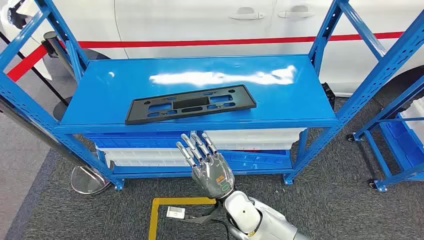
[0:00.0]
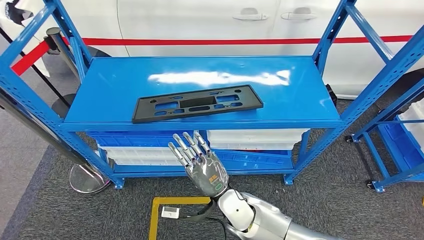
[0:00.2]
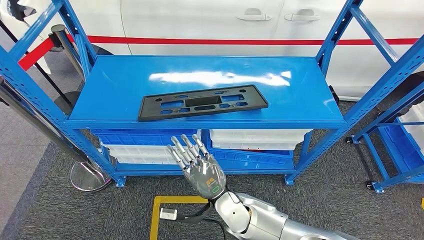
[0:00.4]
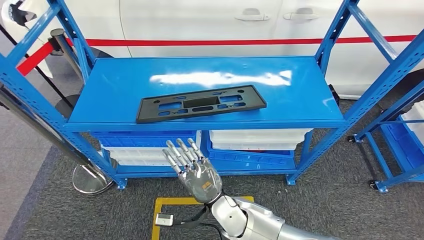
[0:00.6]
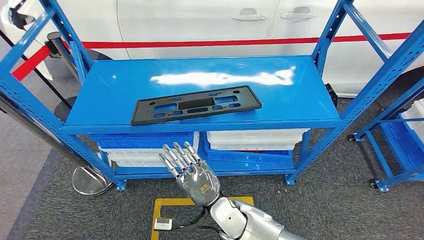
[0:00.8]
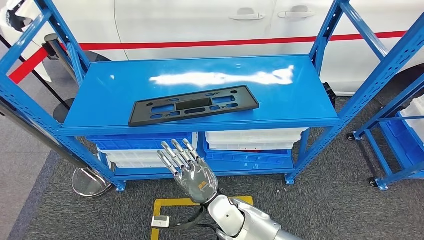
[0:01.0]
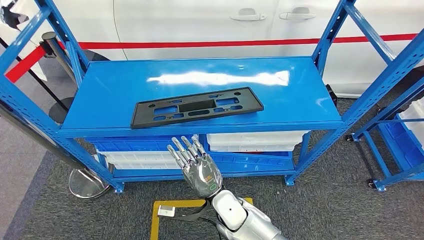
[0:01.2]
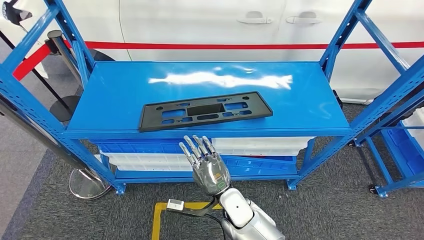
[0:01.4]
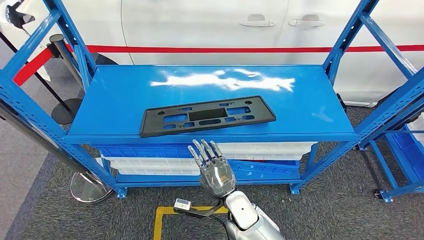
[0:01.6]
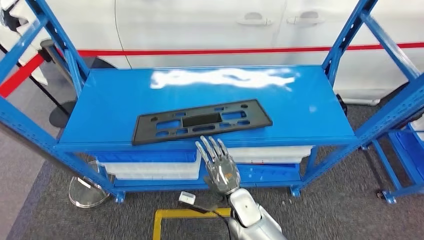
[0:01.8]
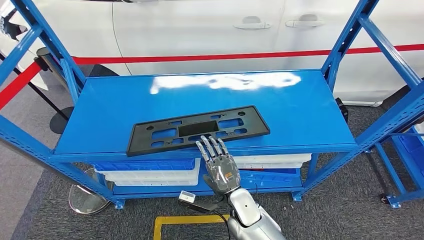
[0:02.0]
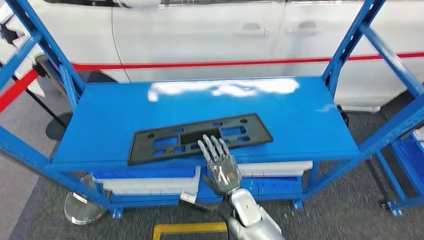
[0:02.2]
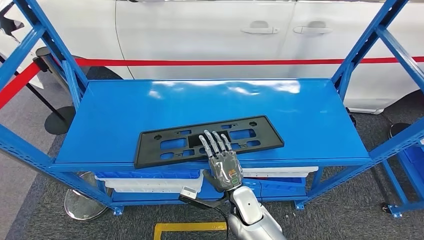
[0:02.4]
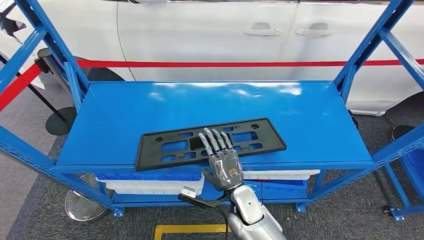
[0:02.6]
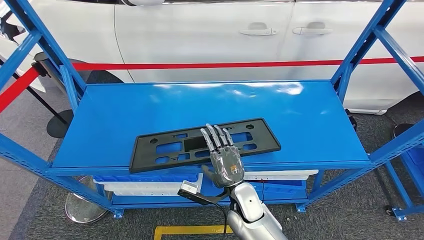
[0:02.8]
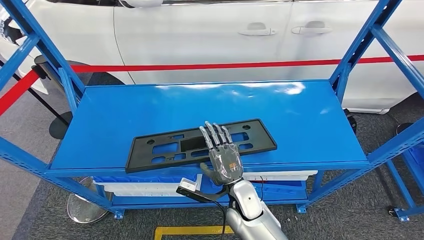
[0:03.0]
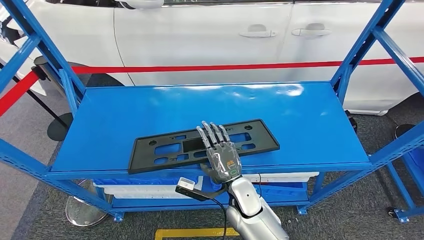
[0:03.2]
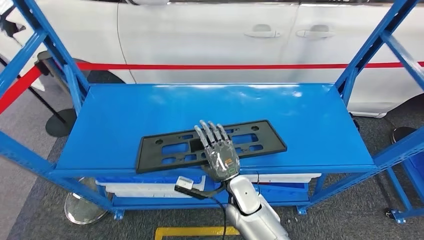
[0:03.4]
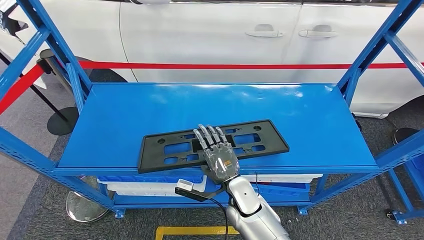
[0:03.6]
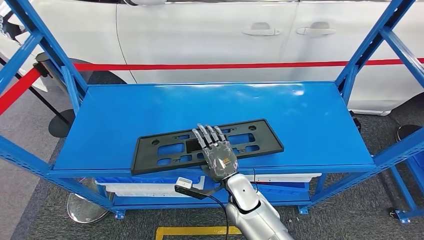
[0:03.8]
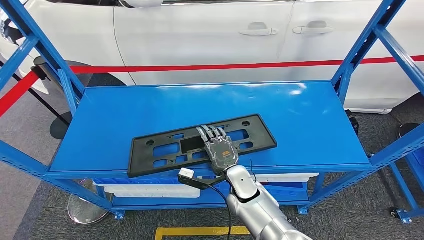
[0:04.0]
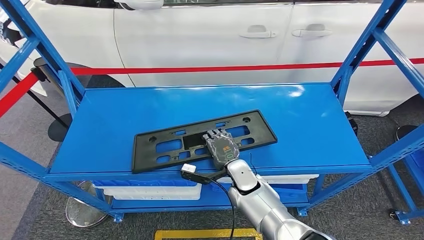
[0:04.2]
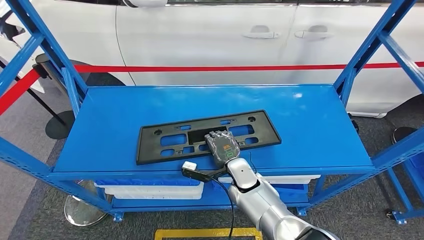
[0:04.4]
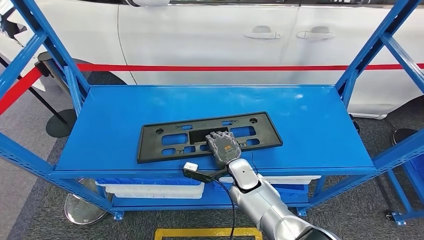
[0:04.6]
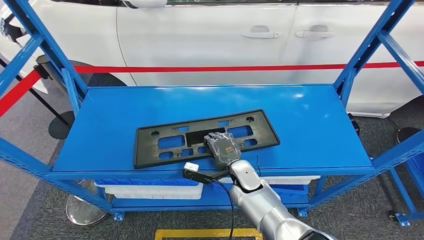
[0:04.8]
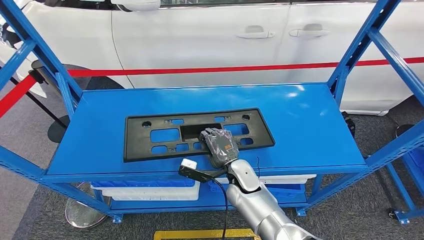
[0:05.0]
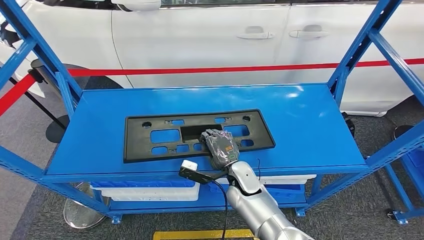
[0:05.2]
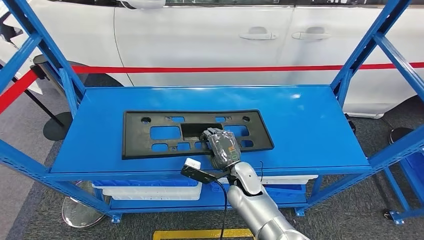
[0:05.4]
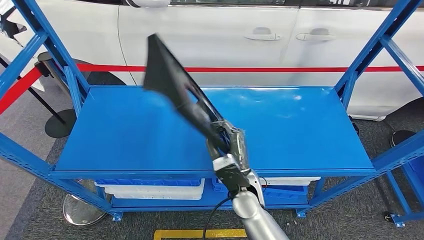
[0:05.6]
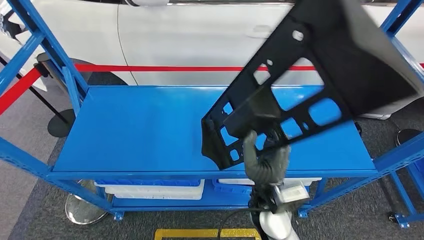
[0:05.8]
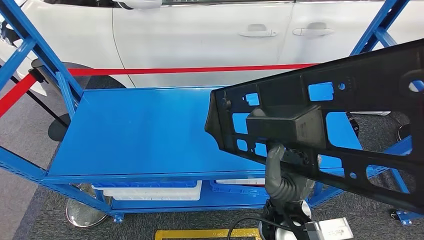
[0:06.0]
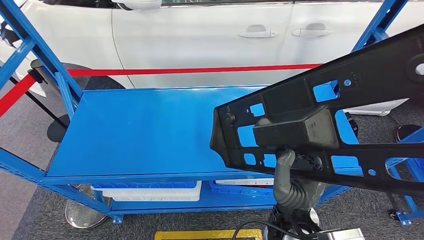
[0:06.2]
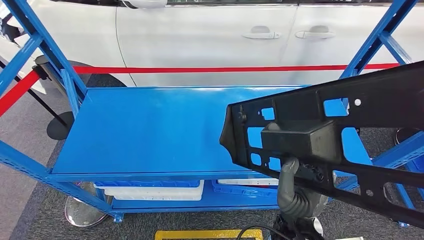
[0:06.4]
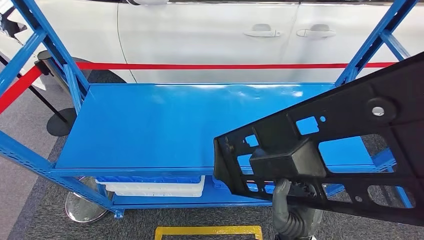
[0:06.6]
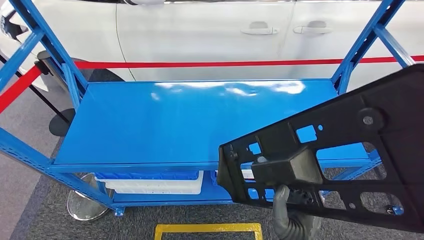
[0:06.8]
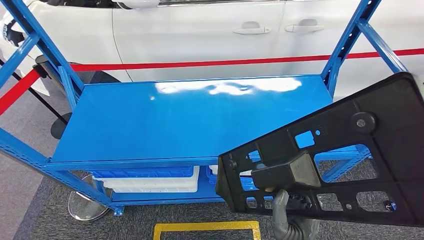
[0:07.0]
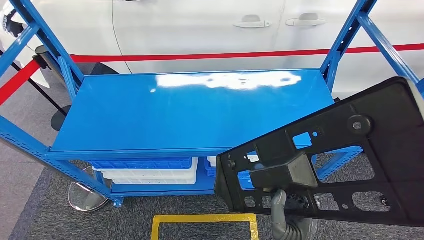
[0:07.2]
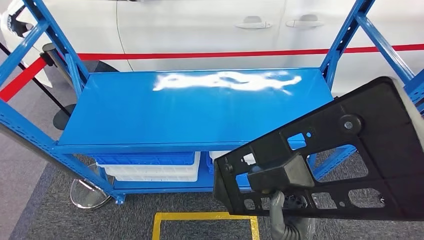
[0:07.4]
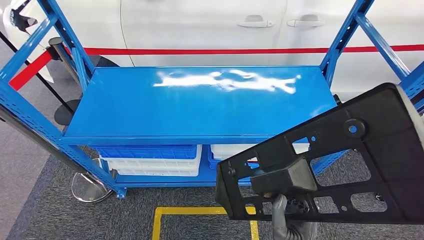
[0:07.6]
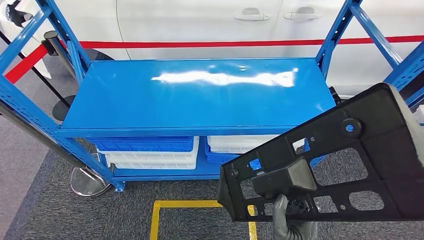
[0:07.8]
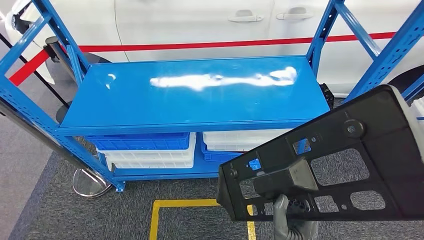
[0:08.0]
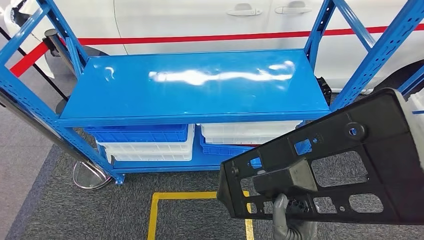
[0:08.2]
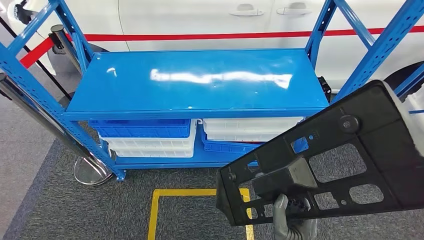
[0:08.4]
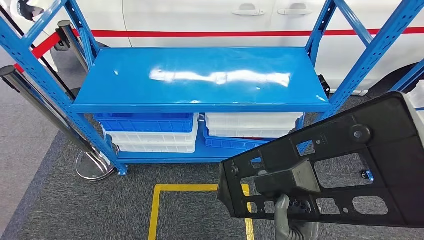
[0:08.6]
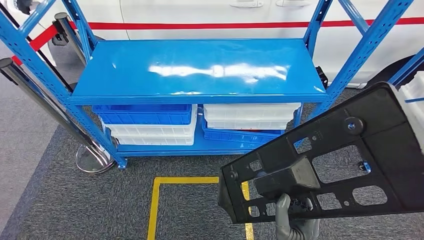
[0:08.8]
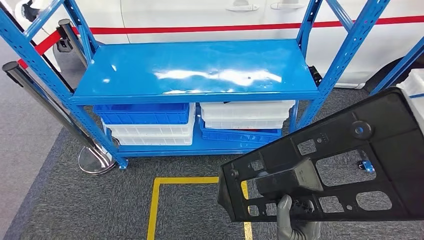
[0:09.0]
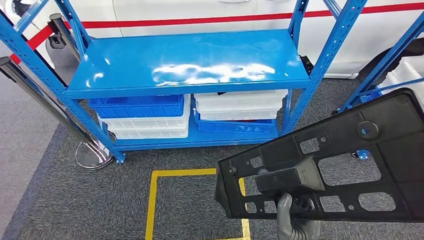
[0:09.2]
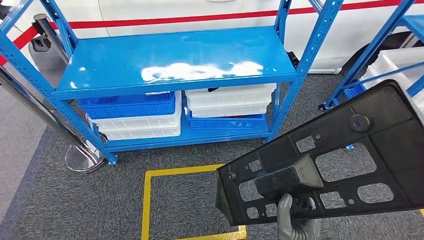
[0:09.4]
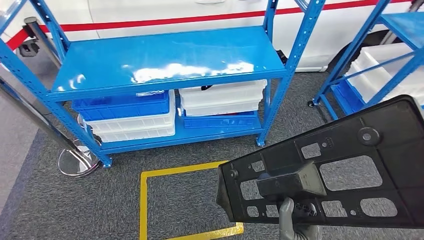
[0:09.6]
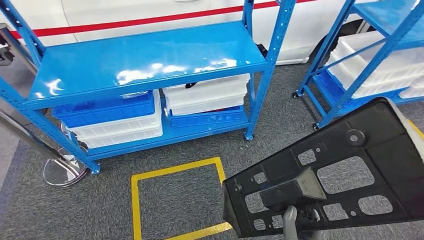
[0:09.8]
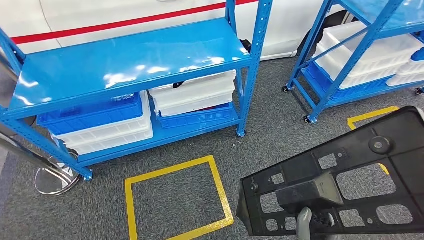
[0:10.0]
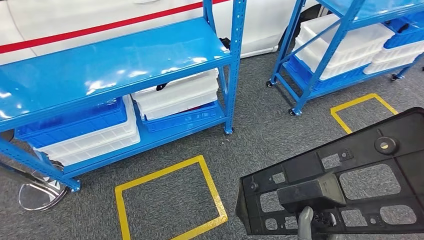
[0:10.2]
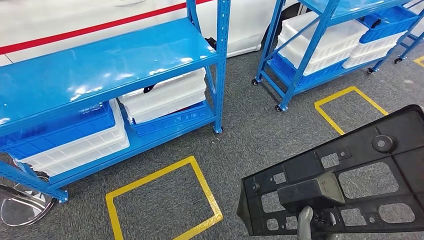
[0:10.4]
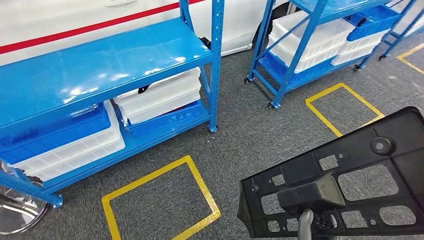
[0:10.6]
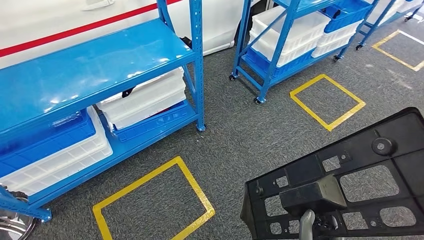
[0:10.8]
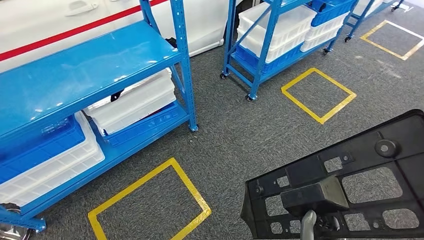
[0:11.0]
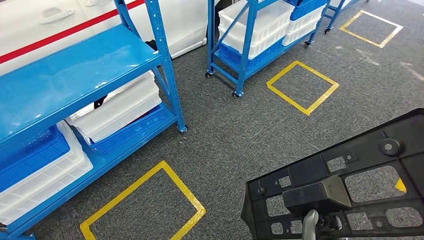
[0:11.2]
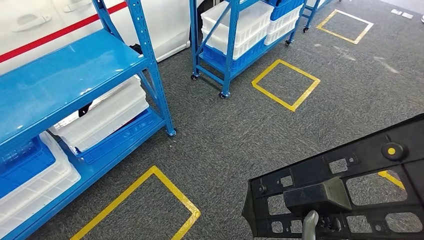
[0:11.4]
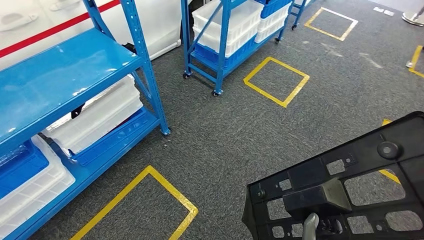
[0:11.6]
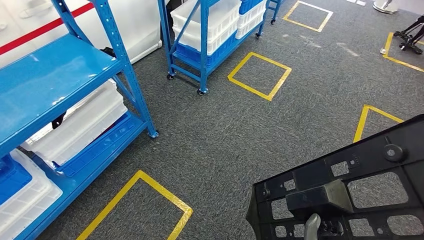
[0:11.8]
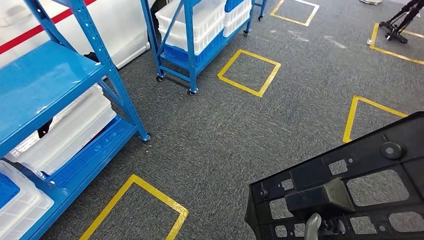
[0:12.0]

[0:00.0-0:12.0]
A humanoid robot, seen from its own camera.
Step, 0:00.0 to 0:08.0: Pick up the large material from the shelf.

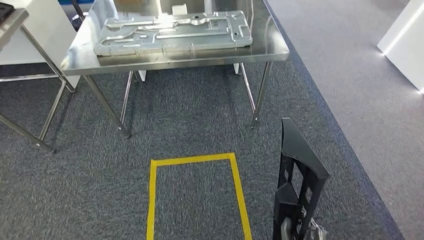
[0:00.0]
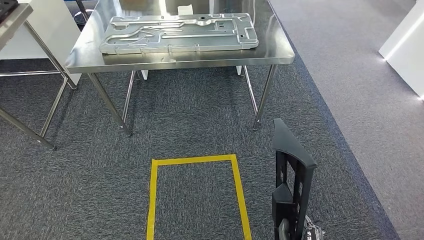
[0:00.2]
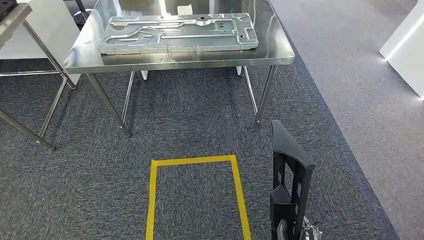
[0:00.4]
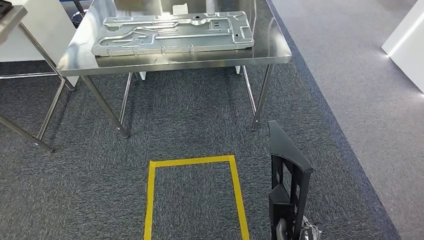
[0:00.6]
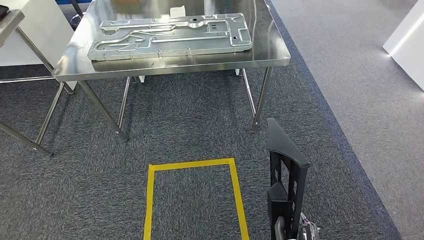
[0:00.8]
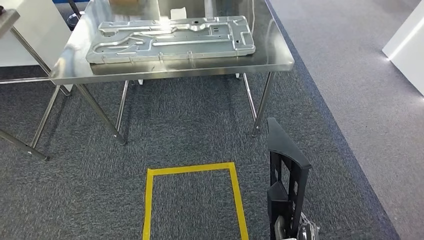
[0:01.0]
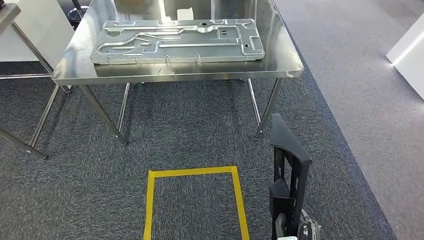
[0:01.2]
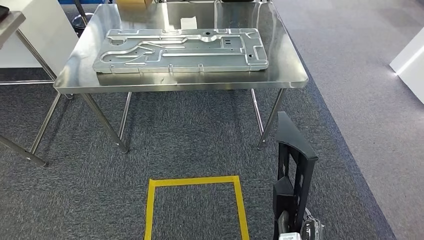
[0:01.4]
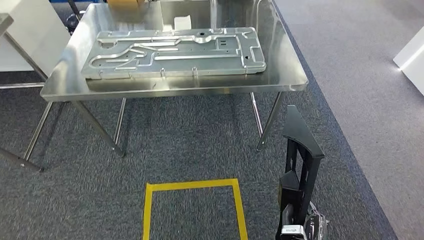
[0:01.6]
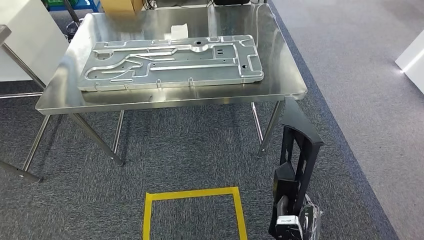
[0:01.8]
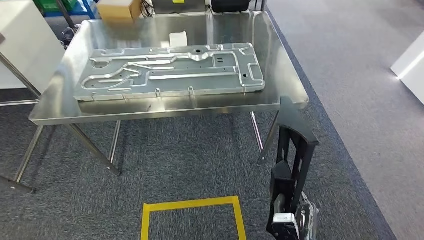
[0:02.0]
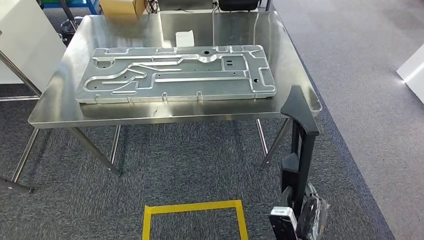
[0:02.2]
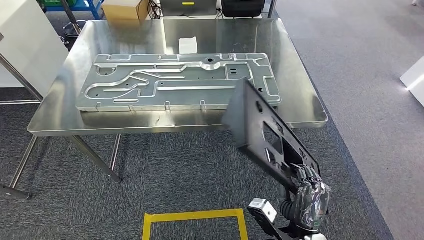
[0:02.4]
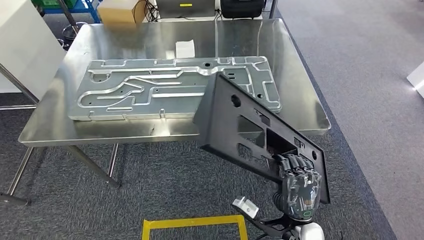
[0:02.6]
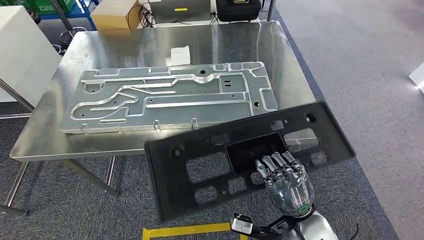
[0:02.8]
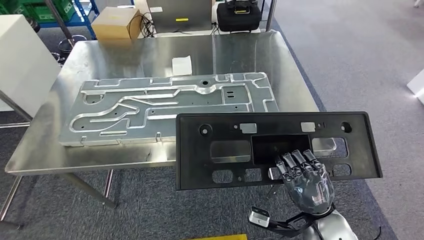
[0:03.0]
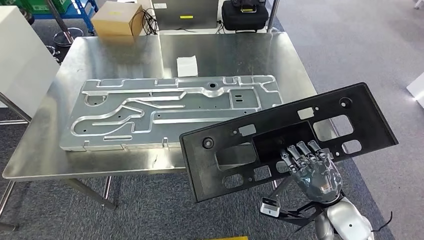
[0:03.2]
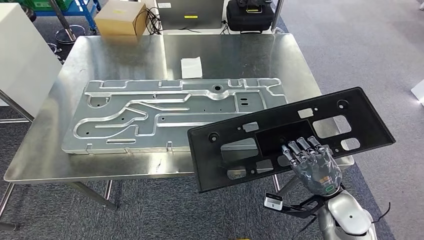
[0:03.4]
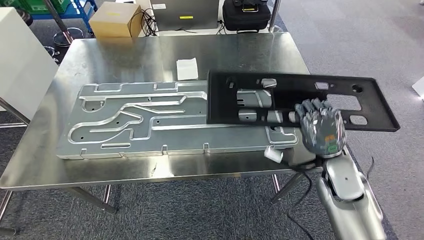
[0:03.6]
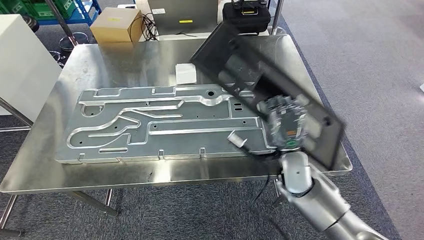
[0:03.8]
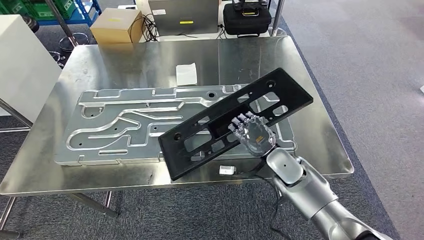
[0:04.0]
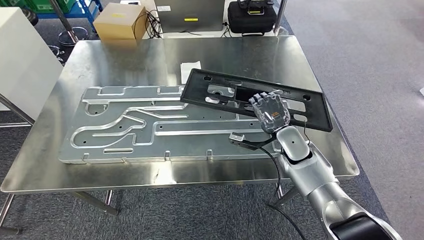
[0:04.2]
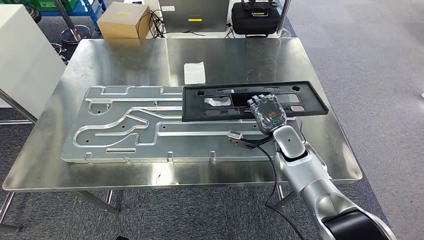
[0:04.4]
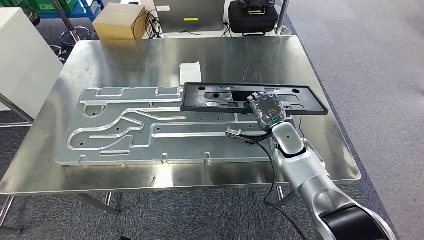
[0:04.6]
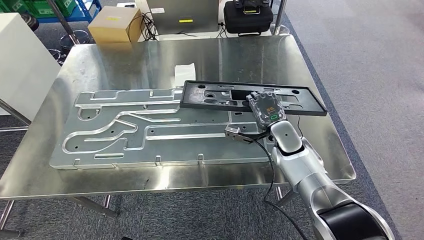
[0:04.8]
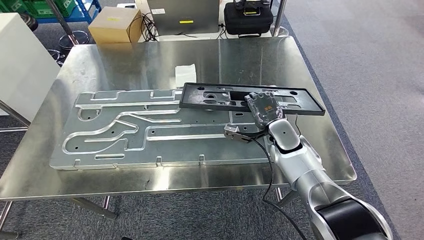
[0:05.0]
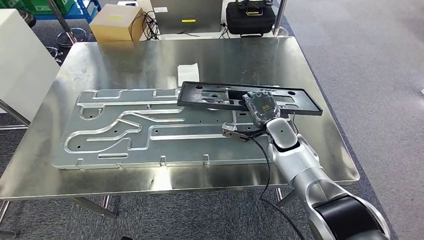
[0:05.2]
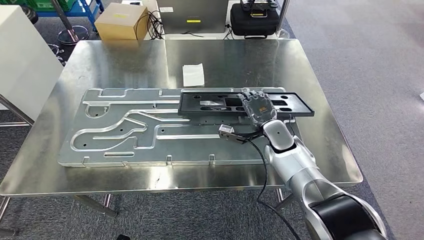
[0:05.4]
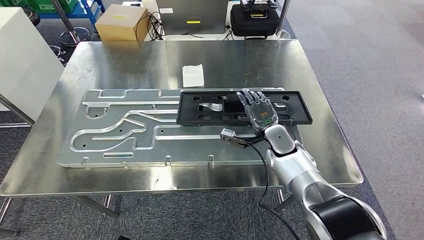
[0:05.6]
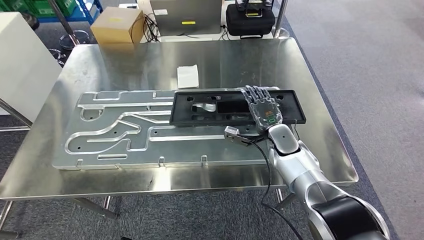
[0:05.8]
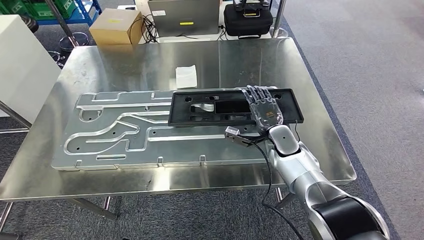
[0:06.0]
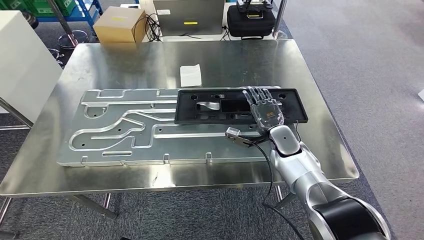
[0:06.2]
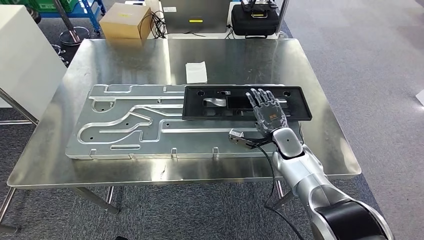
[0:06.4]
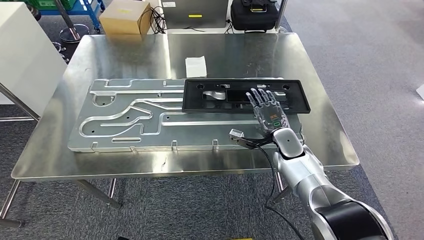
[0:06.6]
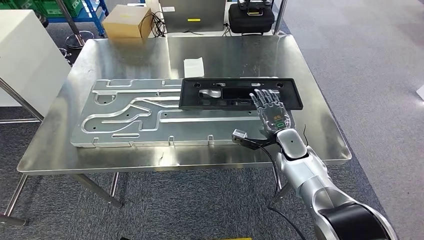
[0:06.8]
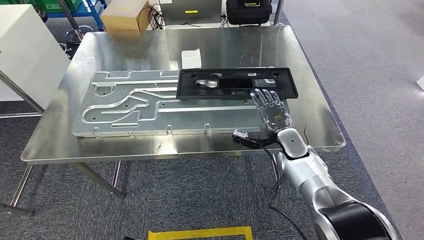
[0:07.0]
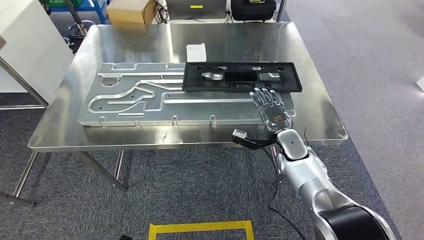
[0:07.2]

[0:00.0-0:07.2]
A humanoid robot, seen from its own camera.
Step, 0:00.0 to 0:03.0: Move the large material to the workbench.
